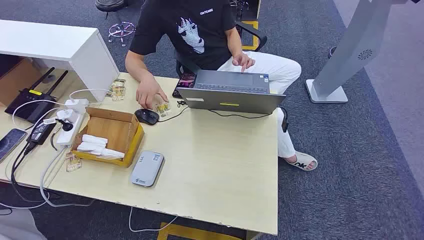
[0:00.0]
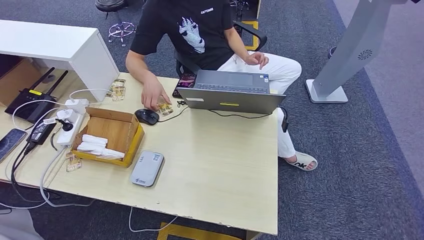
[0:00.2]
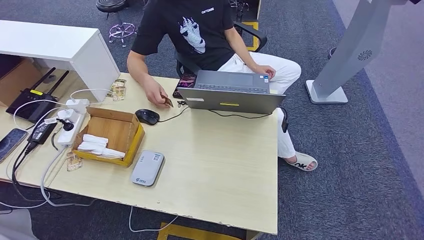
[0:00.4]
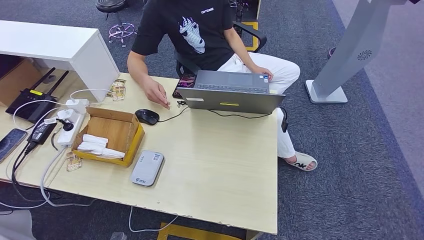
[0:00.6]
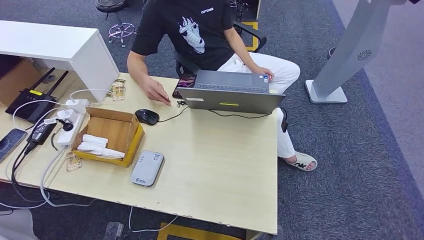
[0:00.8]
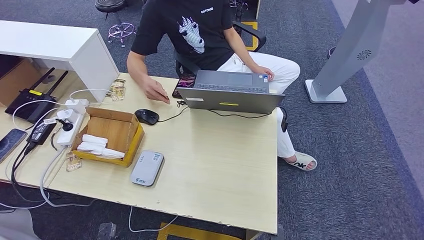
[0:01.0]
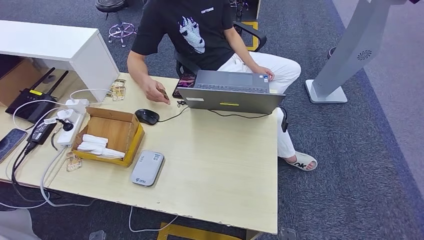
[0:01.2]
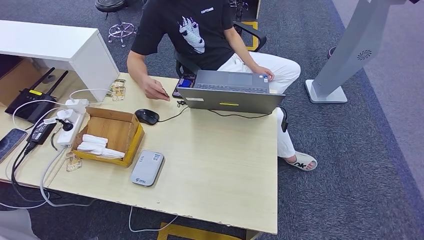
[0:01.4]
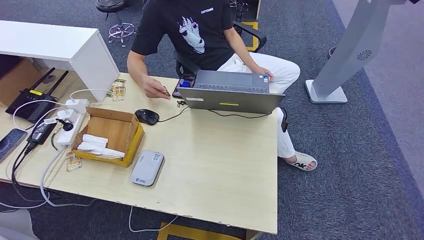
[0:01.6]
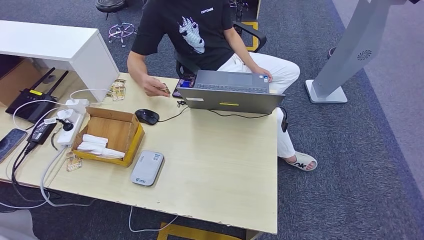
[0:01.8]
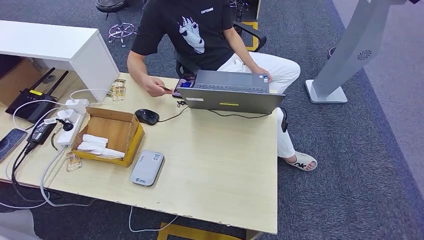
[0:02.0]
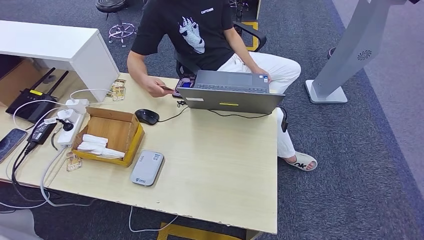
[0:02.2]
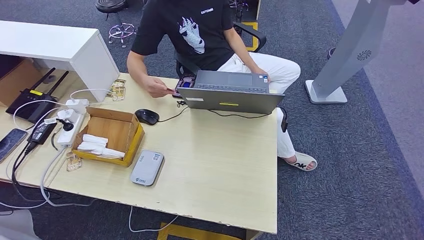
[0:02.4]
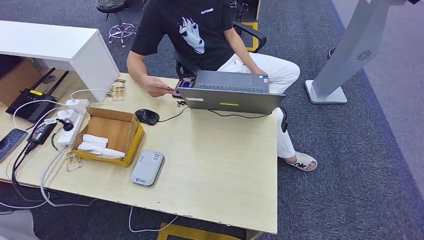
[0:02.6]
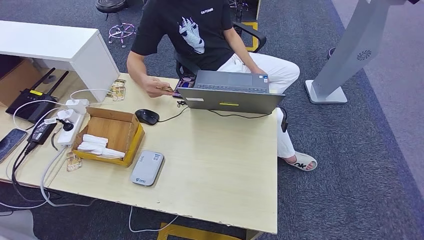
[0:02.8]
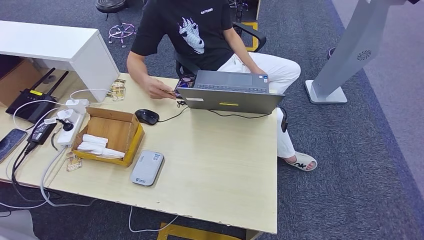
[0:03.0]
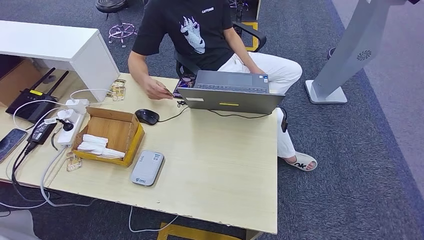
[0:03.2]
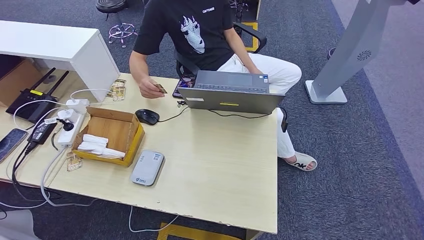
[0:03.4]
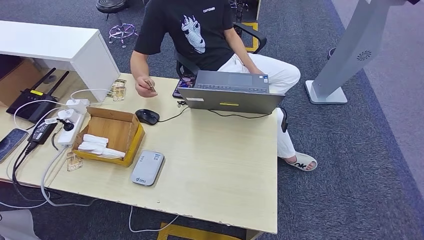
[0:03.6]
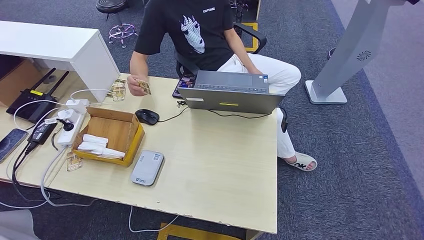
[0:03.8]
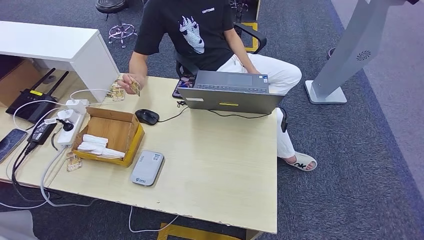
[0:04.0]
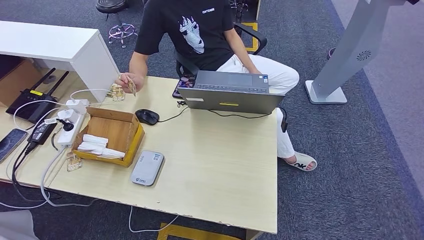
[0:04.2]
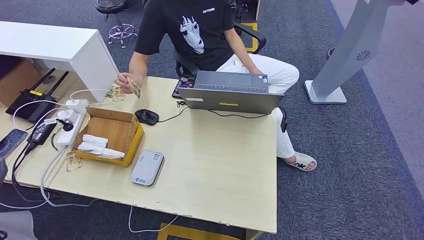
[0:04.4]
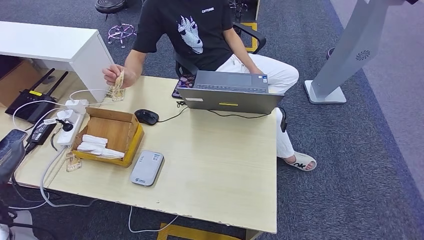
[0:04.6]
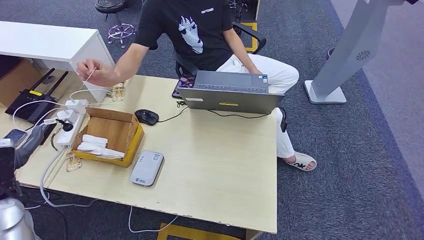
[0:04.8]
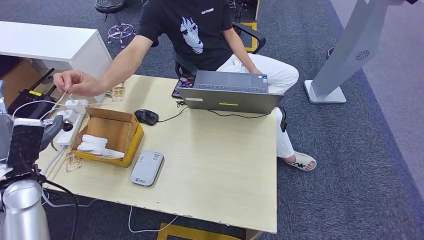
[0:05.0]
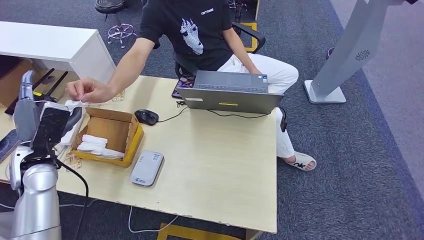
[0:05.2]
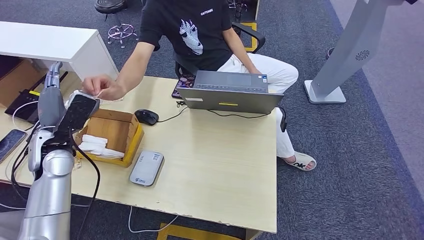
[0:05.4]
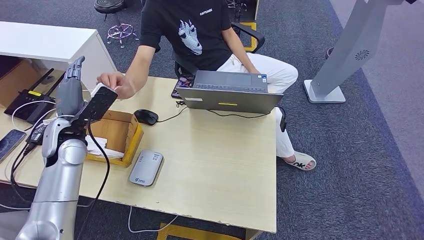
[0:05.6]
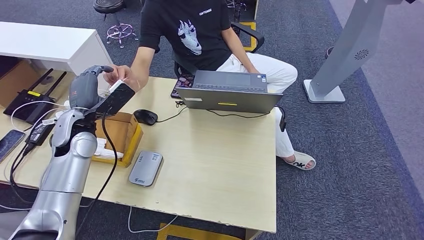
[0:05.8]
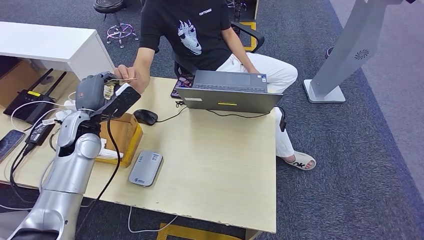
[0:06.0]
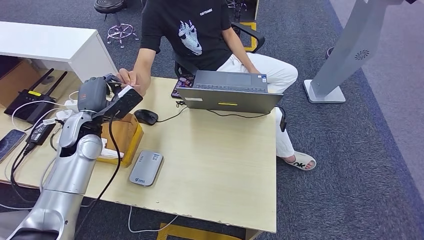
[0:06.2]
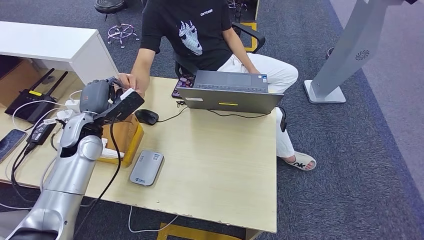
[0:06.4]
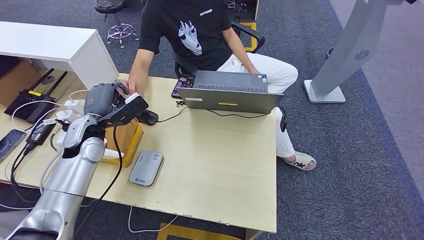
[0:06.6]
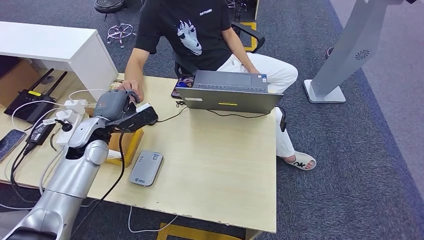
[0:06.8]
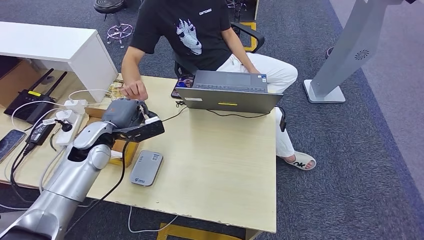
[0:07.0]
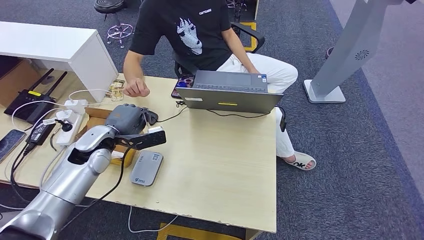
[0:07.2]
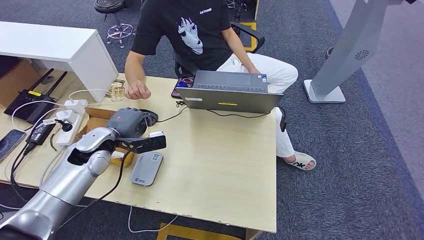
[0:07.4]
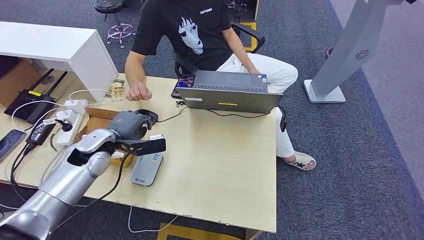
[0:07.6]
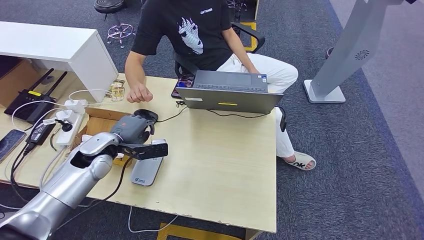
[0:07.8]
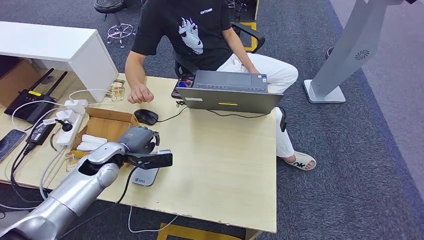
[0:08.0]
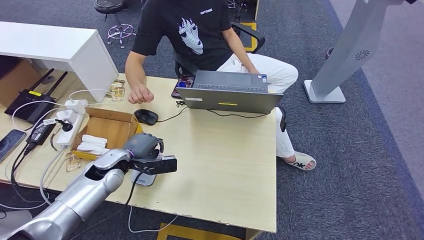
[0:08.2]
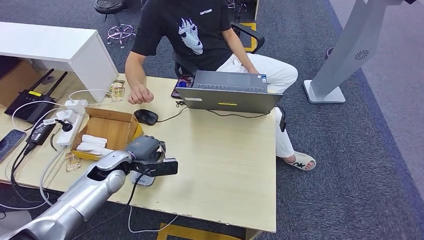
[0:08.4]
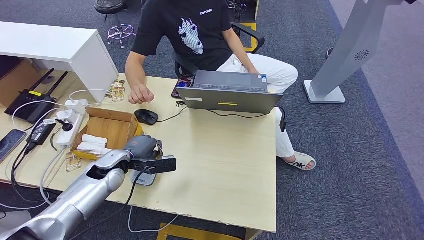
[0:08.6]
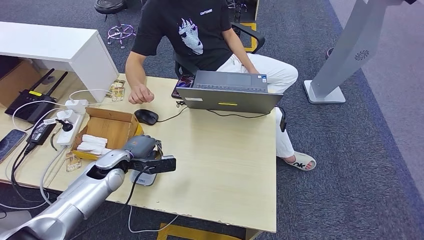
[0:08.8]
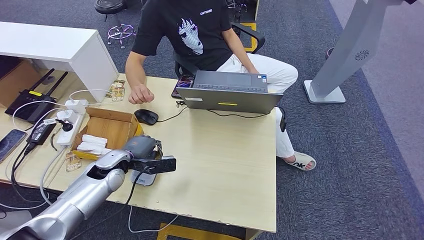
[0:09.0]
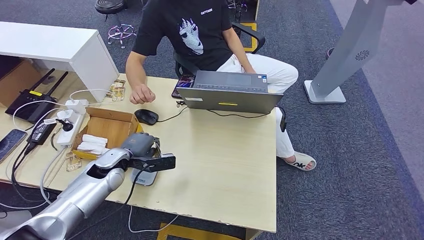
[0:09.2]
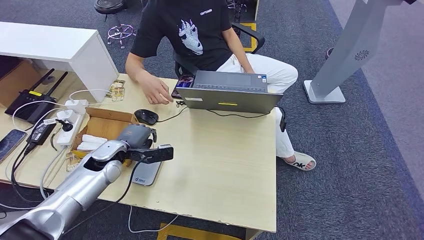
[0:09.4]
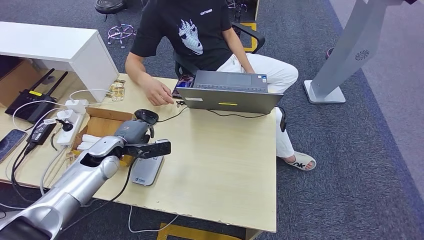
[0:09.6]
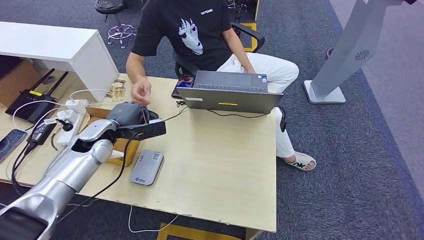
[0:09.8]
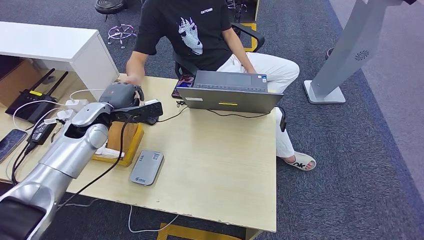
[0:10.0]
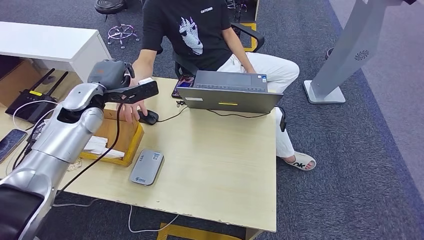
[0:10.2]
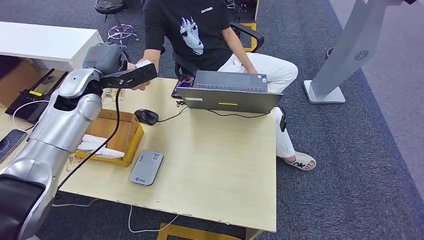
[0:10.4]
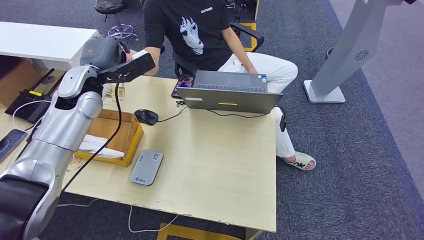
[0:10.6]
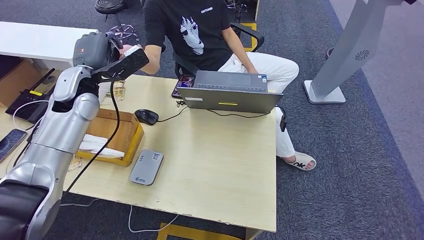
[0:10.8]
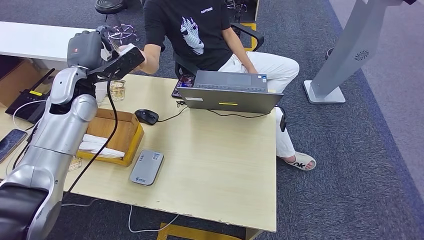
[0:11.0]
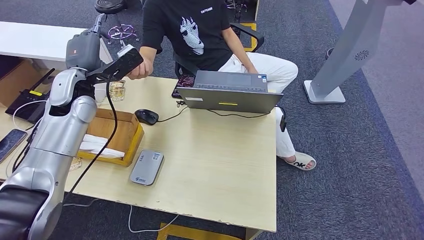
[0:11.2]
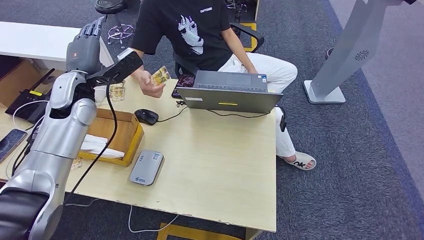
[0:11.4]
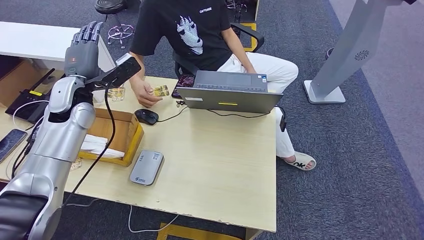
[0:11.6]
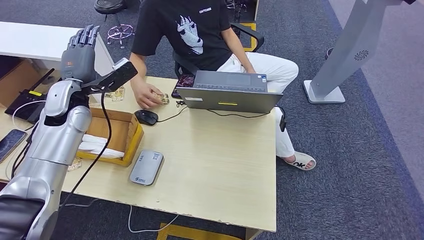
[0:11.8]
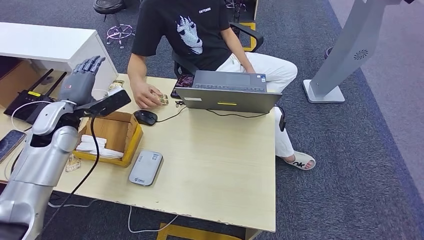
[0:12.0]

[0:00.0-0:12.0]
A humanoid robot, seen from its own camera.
Step, 0:00.0 to 0:07.8: Take the ID card from the person's hand.
Step, 0:08.0 to 0:09.4: Place the ID card on the card reader.
Step, 0:09.6 to 0:11.4: Hand the ID card to the person.
0:01.6 to 0:03.0: The left hand heads to the left, covering approximately 10 cm.
0:03.0 to 0:04.4: The left hand shifts roughly 25 cm upward.
0:04.4 to 0:06.0: The left hand moves forward and to the right, approximately 25 cm.
0:06.0 to 0:07.6: The left hand heads downward, covering about 5 cm.
0:07.6 to 0:09.0: The left hand is displaced downward by about 5 cm.
0:09.0 to 0:10.4: The left hand goes roughly 25 cm upward and forward.
0:10.4 to 0:12.0: The left hand shifts approximately 10 cm to the left, downward and backward.

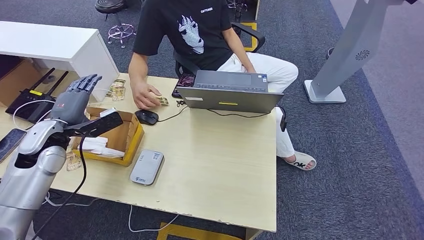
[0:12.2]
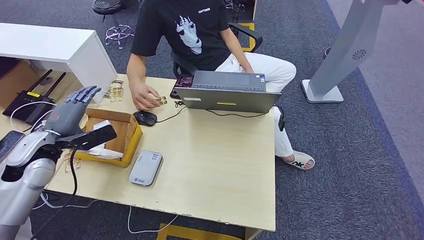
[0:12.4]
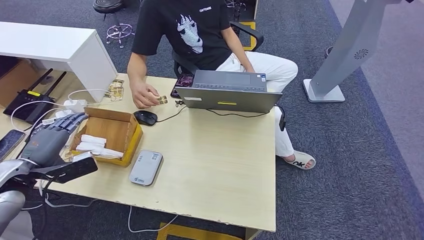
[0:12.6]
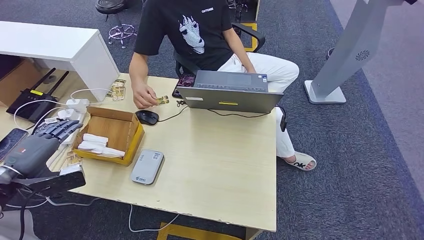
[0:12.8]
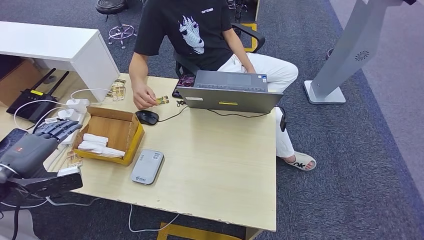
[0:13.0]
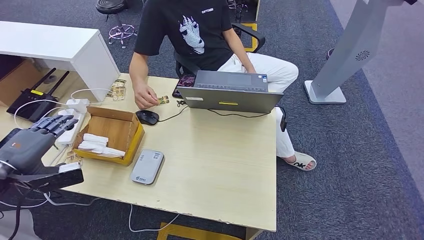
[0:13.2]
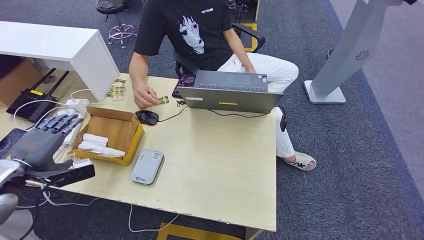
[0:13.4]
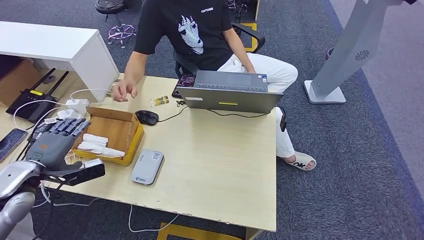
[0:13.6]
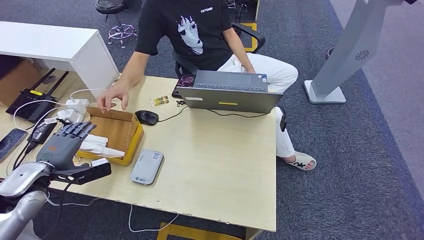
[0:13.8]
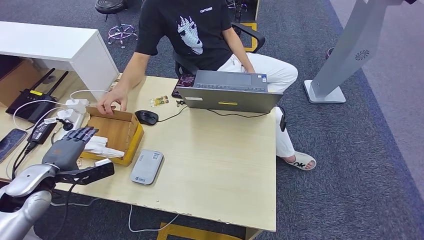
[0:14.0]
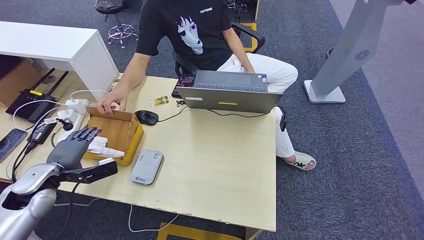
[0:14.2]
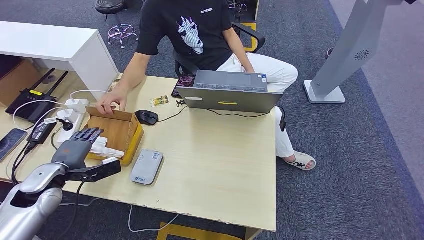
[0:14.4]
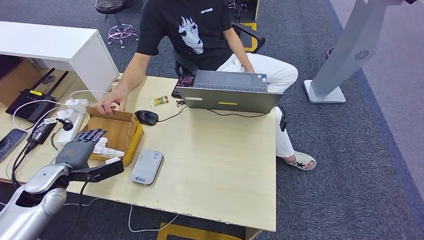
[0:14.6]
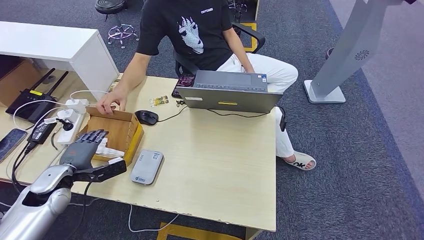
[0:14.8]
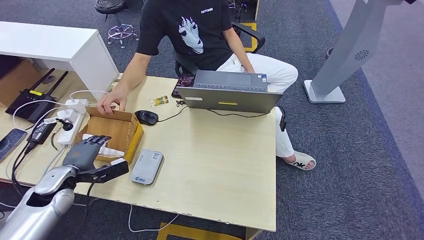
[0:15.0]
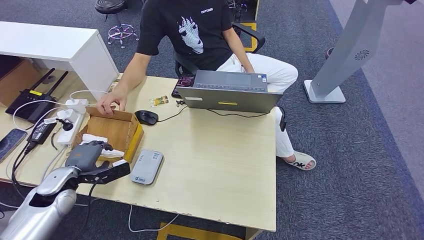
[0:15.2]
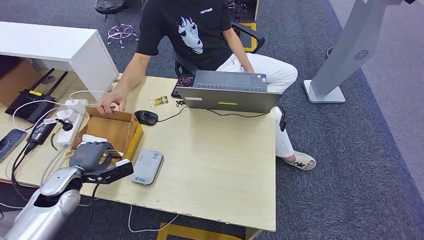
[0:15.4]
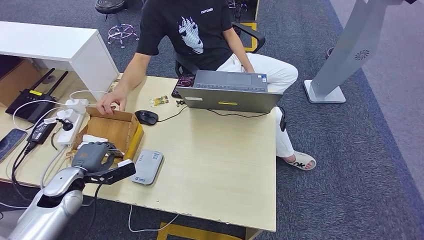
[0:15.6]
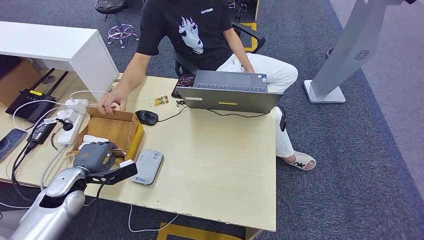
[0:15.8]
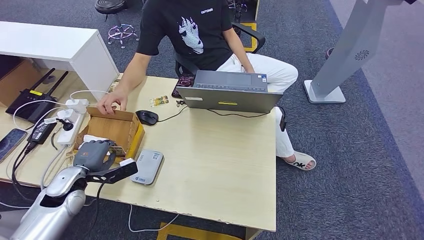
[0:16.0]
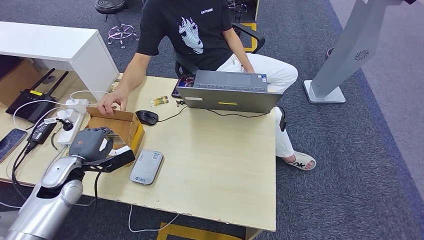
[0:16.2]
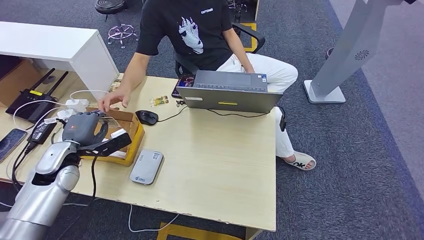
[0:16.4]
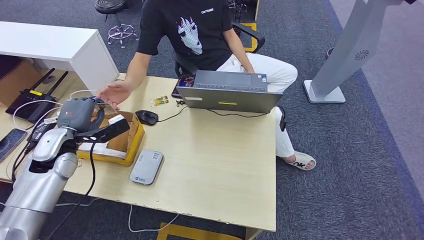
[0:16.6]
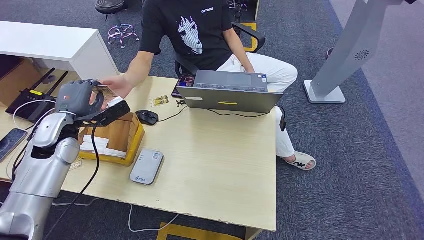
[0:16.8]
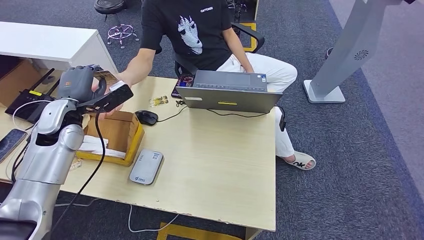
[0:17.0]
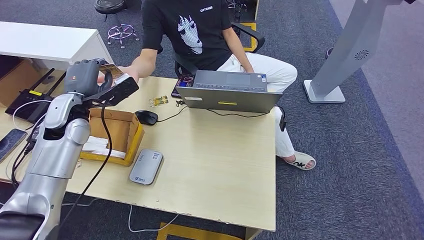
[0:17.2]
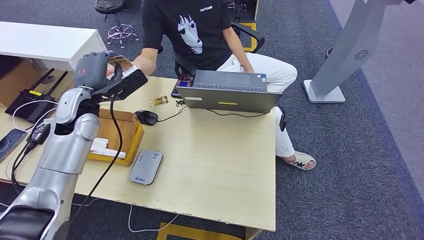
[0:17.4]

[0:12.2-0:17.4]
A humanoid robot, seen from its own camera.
Step, 0:12.2 to 0:15.8: Pick up the room key from the key card box.
0:12.2 to 0:14.0: The left hand heads backward and downward, covering roughly 10 cm.
0:14.0 to 0:15.6: The left hand shifts about 5 cm downward.
0:15.6 to 0:17.4: The left hand goes roughly 25 cm upward, forward and to the right.
